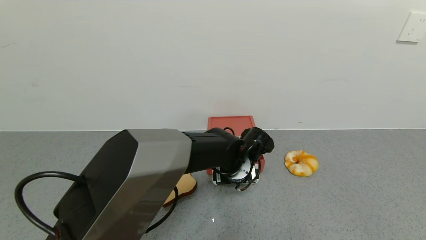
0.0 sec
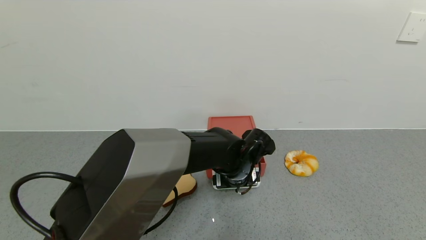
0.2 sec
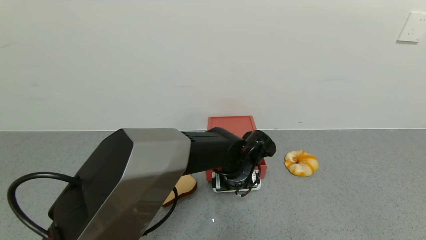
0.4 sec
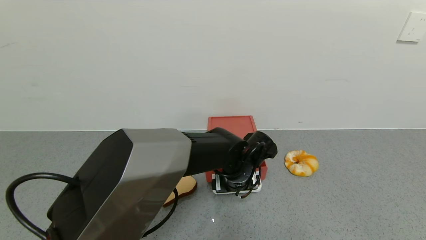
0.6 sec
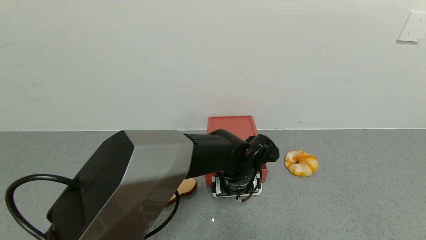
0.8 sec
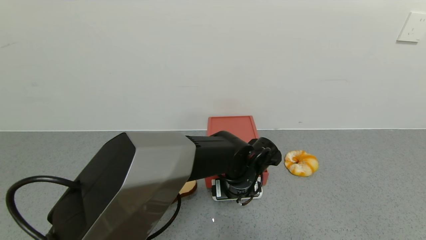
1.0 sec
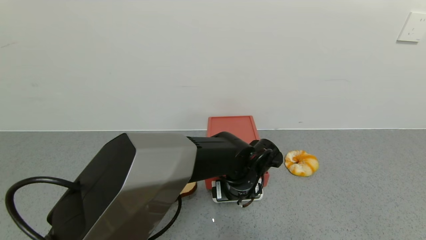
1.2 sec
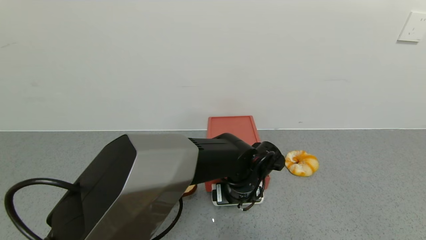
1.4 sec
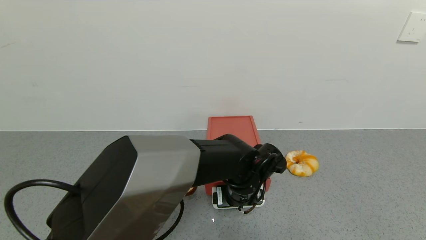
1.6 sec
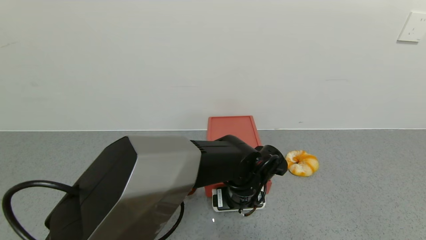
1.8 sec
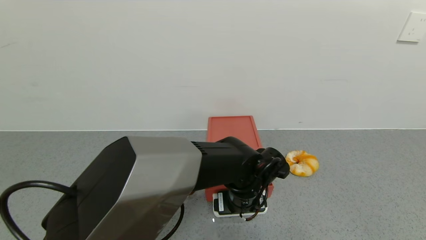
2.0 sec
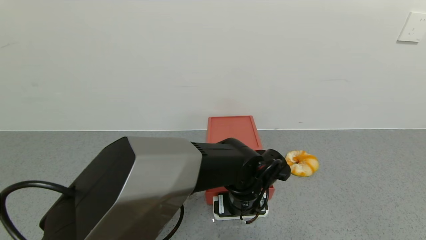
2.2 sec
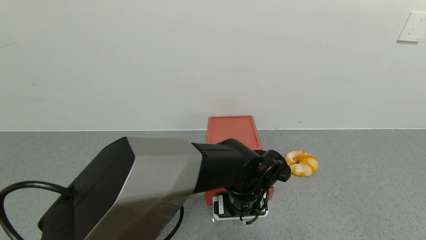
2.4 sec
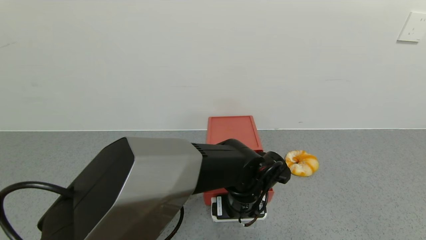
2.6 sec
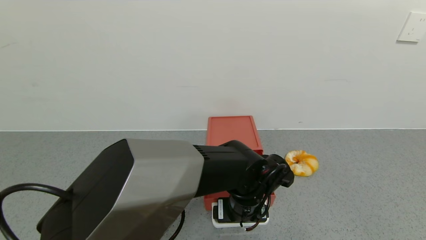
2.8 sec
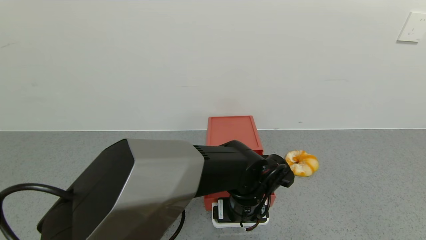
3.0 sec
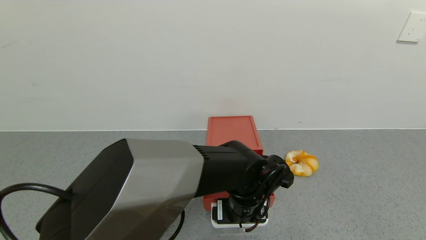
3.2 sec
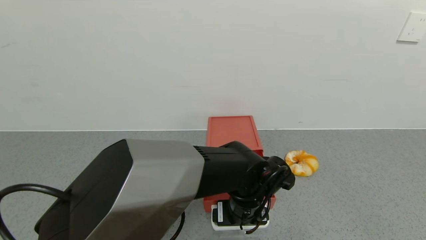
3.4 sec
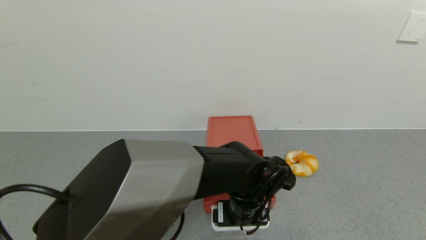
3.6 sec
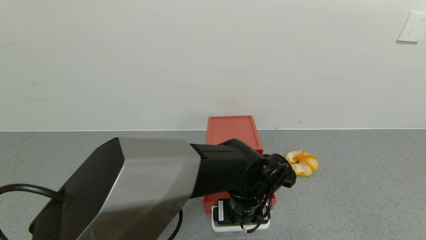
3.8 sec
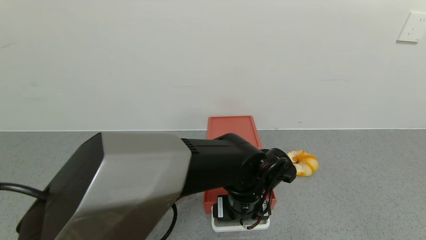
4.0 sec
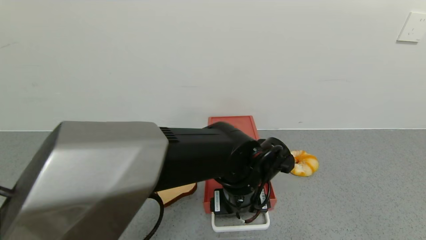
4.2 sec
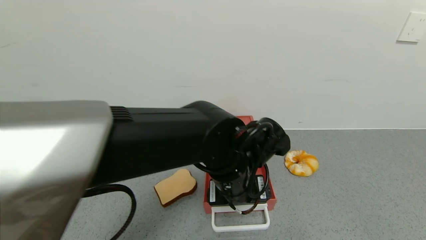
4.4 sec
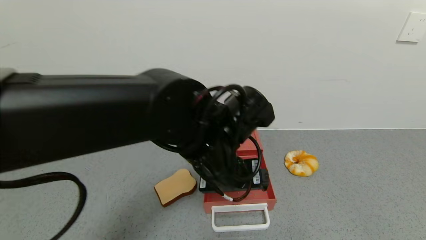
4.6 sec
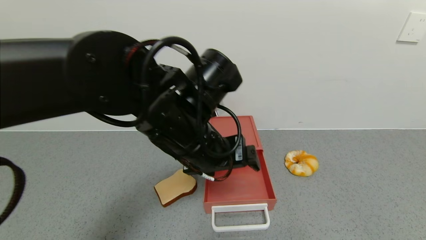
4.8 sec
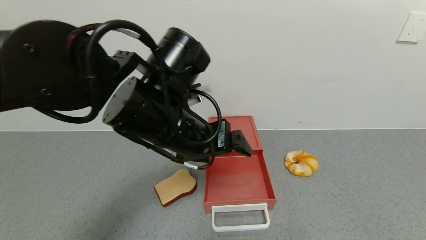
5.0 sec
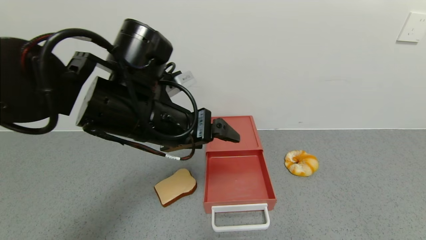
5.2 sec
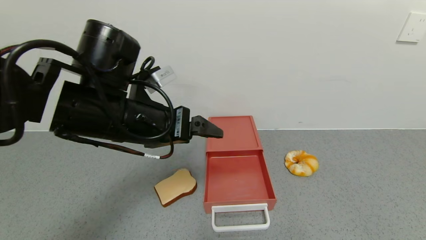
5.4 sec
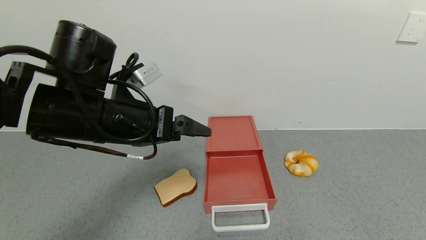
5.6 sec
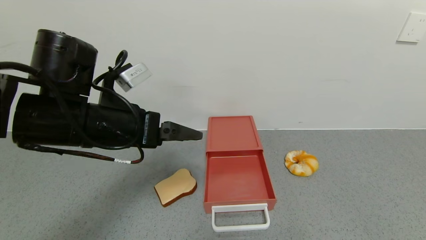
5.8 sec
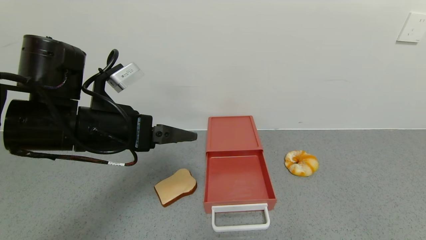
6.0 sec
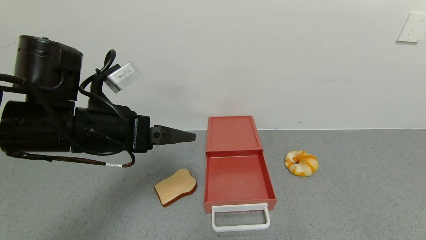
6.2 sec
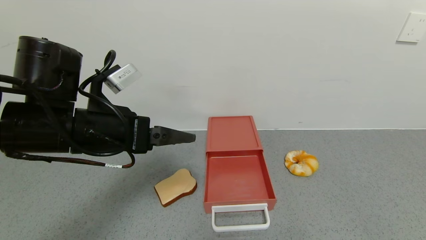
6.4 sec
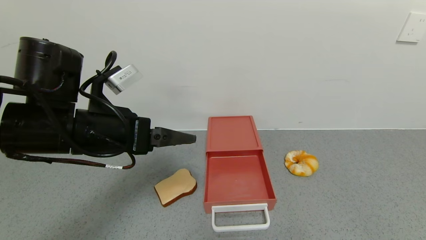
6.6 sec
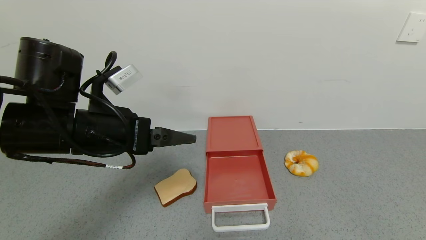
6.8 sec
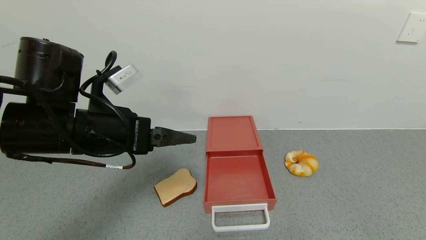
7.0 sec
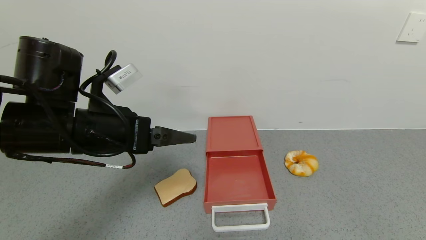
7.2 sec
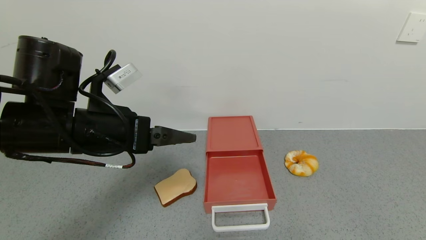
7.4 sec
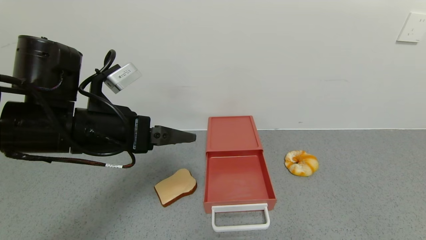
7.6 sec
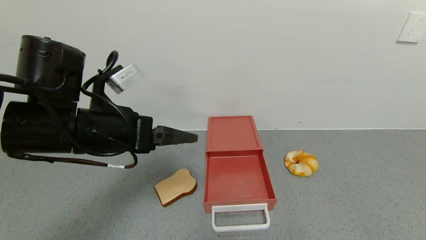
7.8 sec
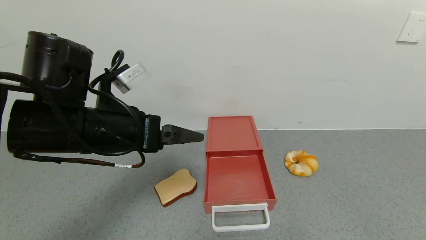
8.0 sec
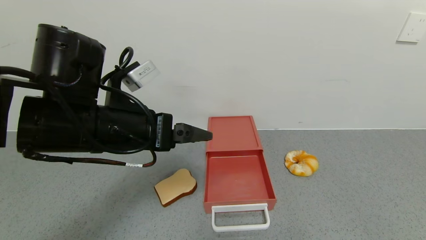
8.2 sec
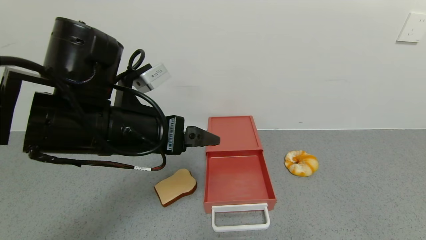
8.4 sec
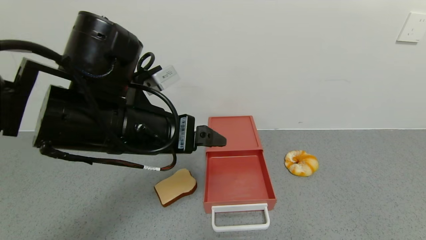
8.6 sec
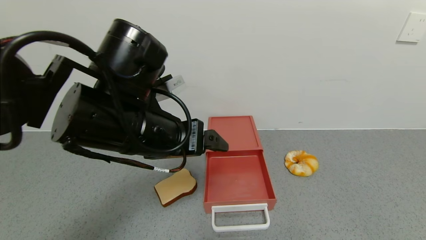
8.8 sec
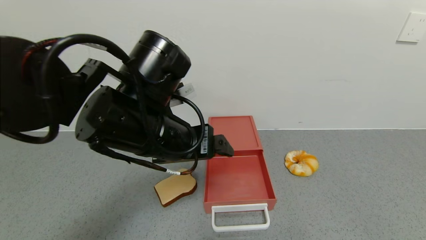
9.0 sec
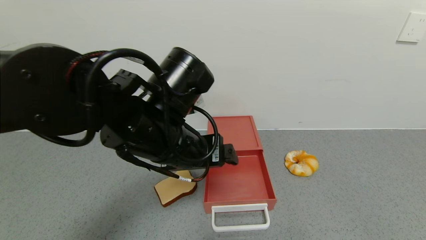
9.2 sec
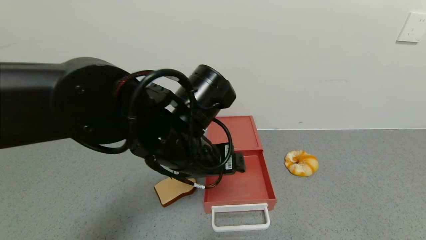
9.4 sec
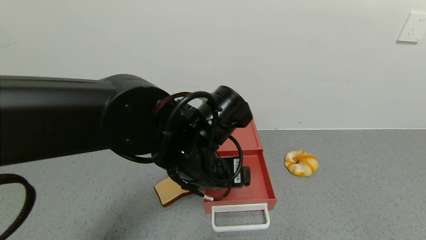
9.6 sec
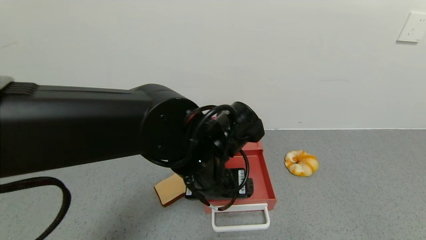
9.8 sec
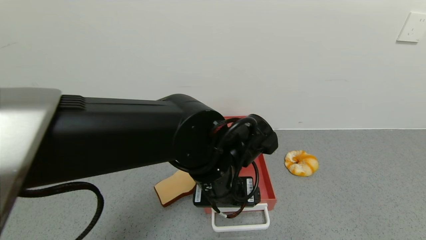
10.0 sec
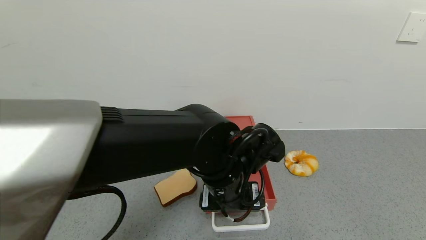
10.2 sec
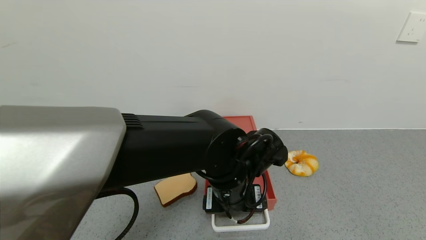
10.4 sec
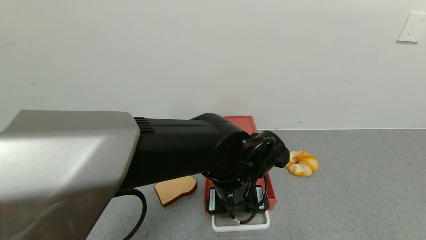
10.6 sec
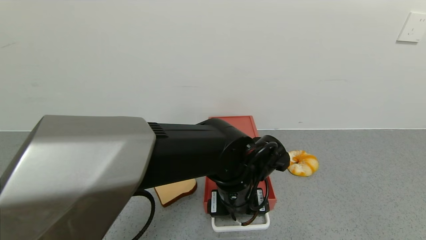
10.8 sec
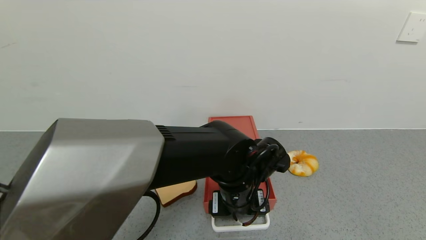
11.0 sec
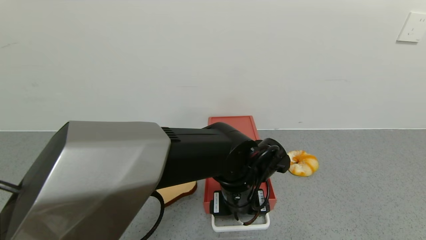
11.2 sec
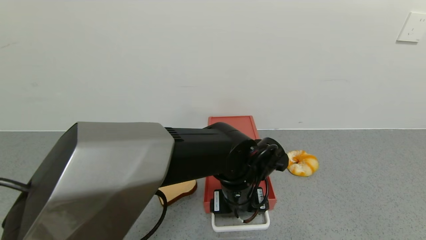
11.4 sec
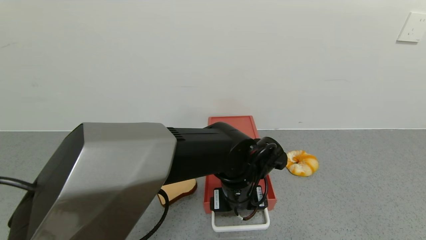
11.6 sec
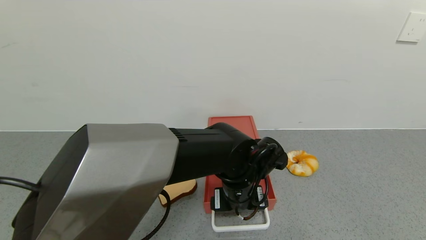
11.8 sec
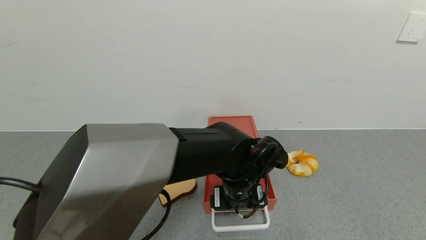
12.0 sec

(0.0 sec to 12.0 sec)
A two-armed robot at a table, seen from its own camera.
Task of the whole recording: use the gripper to open the drawer and close the red drawer.
Step, 0.0 sec - 4.4 sec: Open the red drawer with the left gripper.
0.0 sec - 1.6 sec: The grippers make only small movements.
1.6 sec - 3.0 sec: There are only small adjustments of the grippers.
3.0 sec - 4.4 sec: The left gripper heads upward, covering about 10 cm.
4.4 sec - 6.0 sec: The left gripper goes some 20 cm to the left and upward.
6.0 sec - 7.6 sec: Both grippers stay put.
7.6 sec - 9.0 sec: The left gripper heads to the right, covering roughly 10 cm.
9.0 sec - 10.4 sec: The left gripper is displaced to the right and downward by some 15 cm.

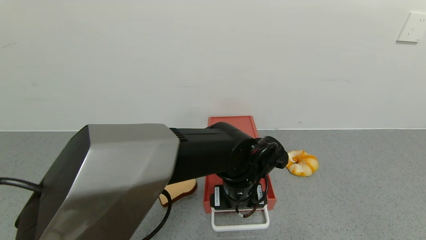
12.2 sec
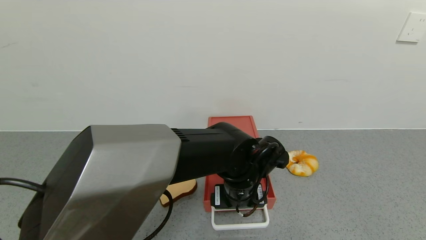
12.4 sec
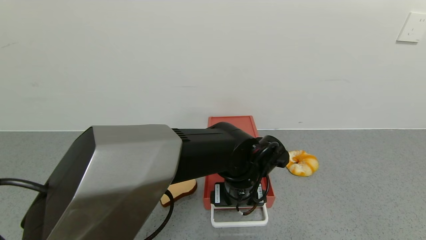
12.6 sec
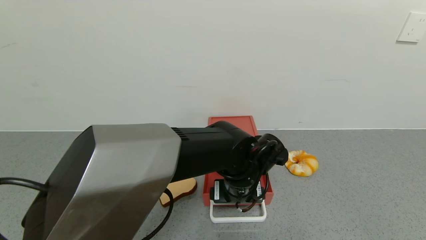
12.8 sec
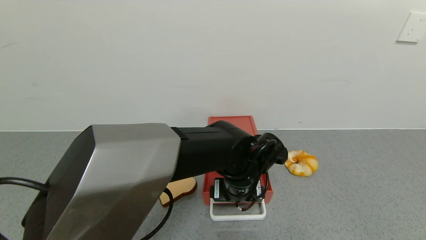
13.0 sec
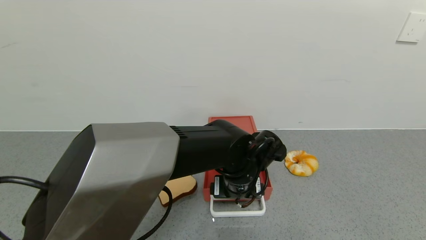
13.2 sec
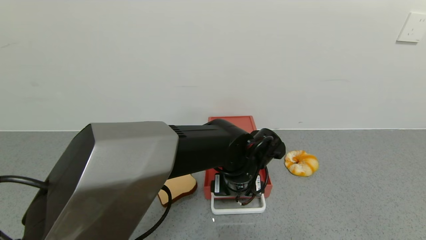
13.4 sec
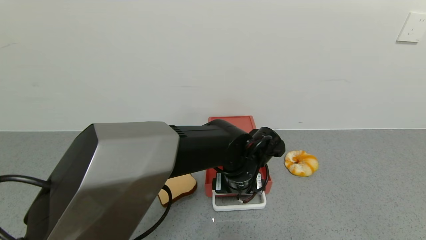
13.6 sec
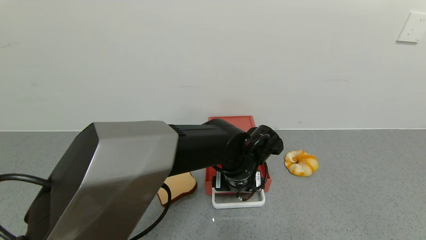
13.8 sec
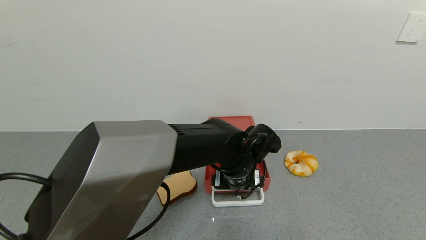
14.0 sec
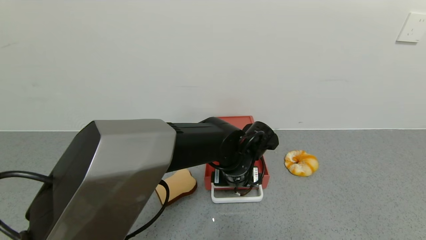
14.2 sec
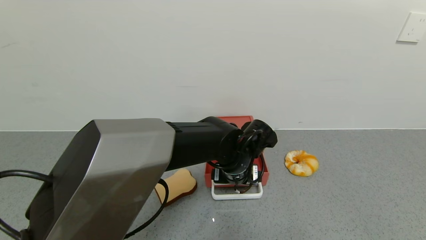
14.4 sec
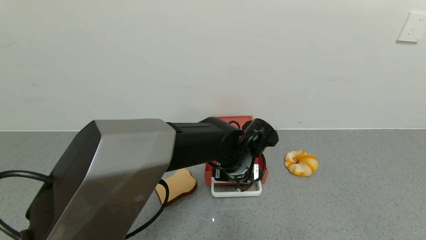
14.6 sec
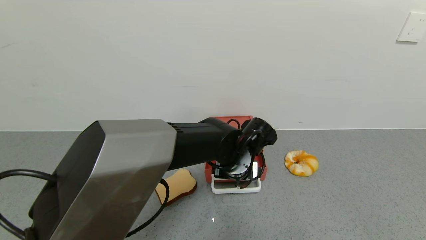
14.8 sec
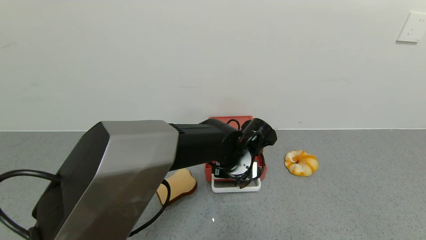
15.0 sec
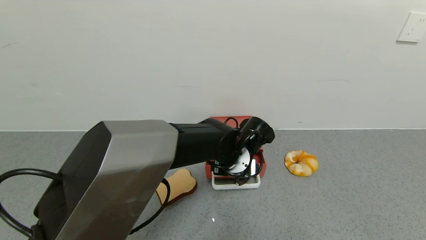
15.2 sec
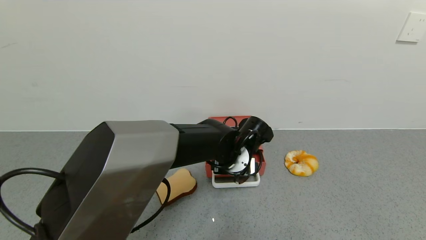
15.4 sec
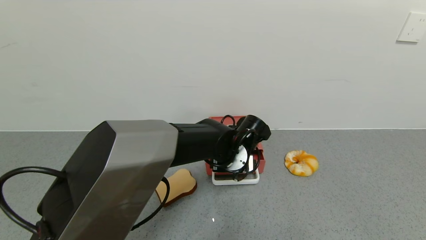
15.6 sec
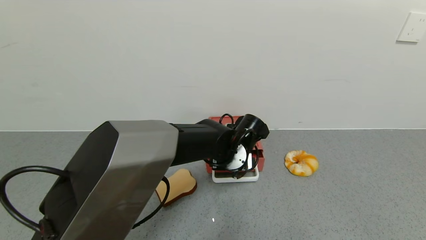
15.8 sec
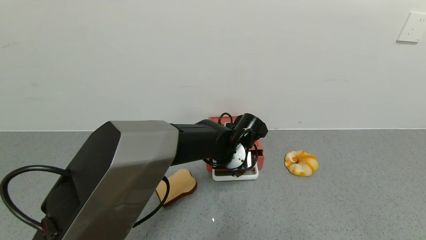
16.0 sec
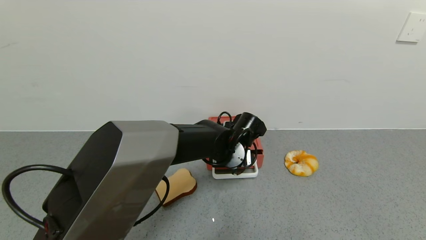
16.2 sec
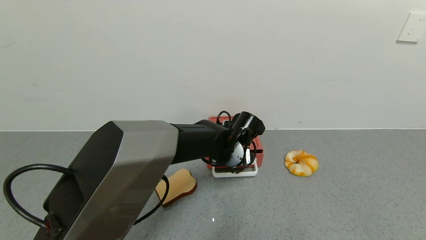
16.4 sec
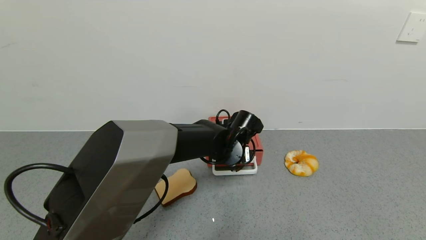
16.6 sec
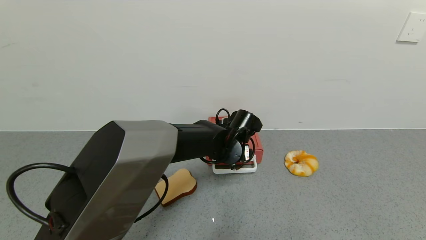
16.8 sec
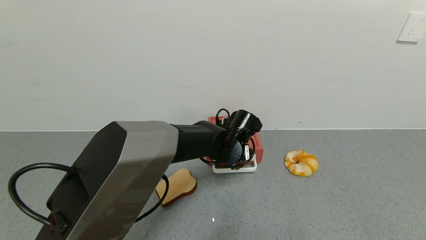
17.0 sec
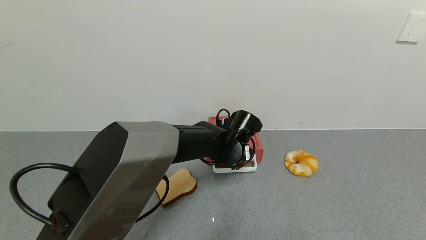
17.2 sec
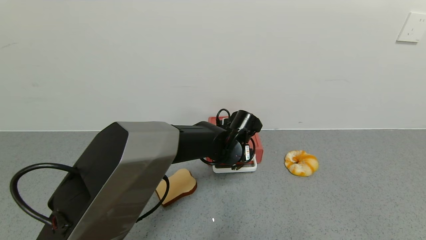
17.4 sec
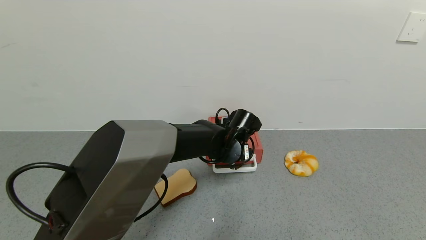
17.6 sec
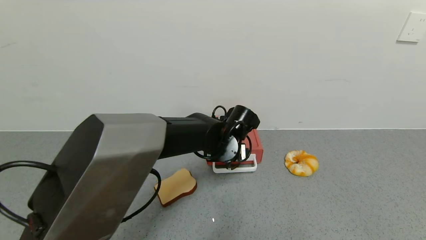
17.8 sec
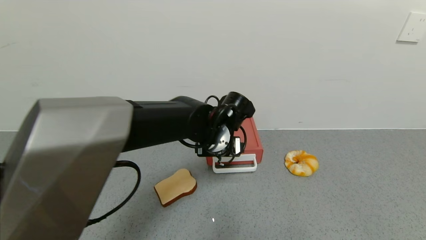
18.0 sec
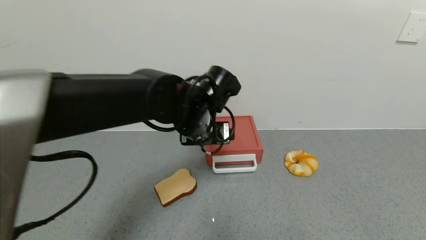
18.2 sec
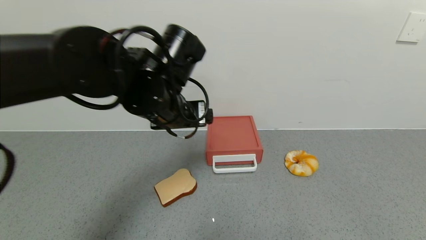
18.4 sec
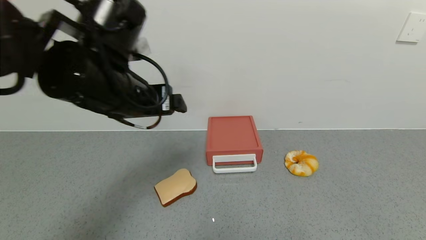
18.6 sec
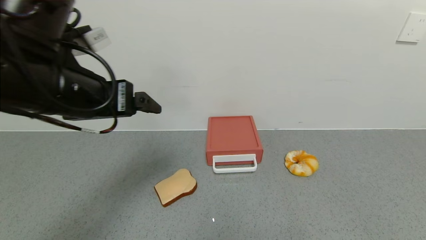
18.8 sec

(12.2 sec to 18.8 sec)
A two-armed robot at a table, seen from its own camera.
Task of the whole recording: use the gripper to open the drawer and close the red drawer.
Step, 12.2 sec - 18.0 sec: Close the red drawer with the left gripper.
12.2 sec - 13.8 sec: The grippers stay close to where they were, moving slightly.
13.8 sec - 15.4 sec: The grippers make only small movements.
15.4 sec - 17.2 sec: There are only small adjustments of the grippers.
17.2 sec - 18.8 sec: The left gripper goes some 35 cm to the left, upward and backward.
